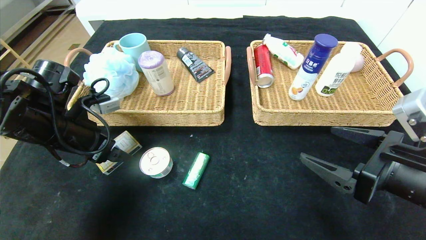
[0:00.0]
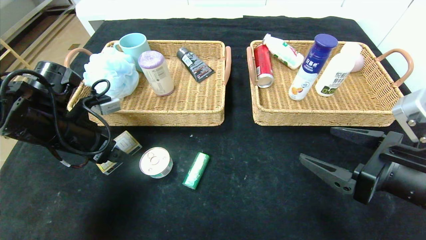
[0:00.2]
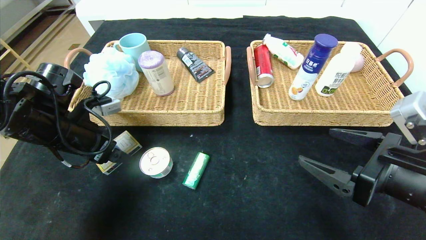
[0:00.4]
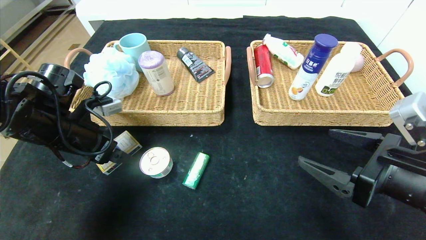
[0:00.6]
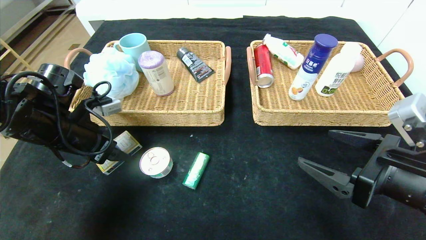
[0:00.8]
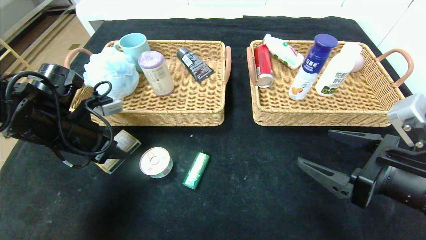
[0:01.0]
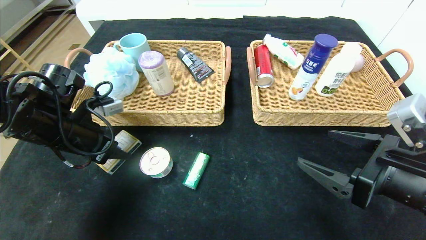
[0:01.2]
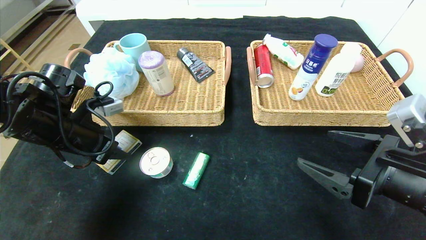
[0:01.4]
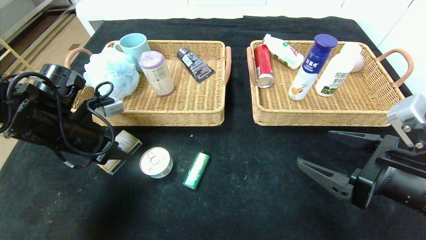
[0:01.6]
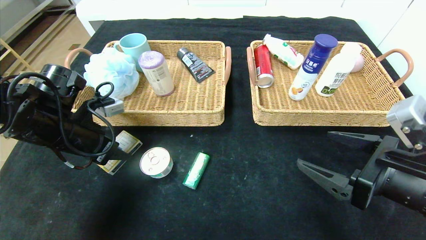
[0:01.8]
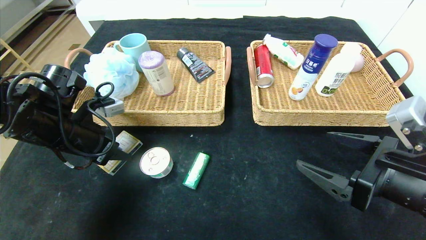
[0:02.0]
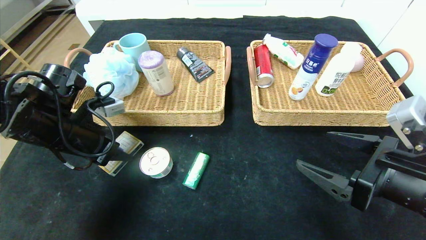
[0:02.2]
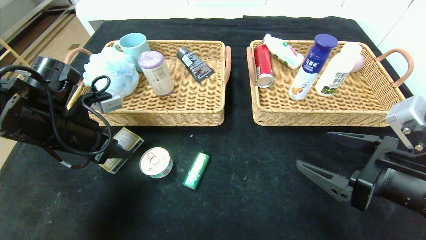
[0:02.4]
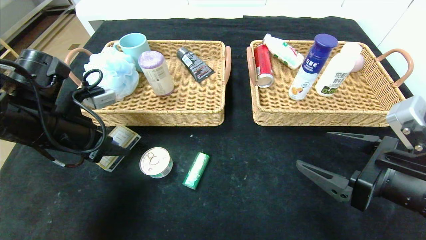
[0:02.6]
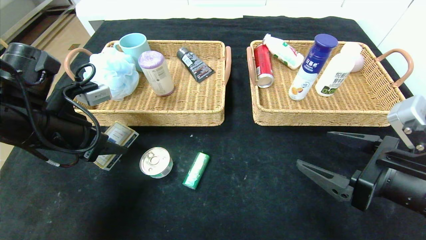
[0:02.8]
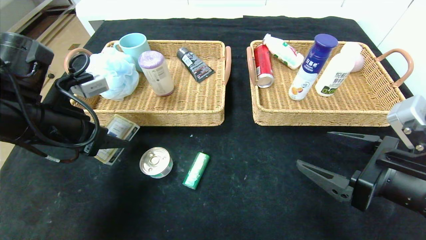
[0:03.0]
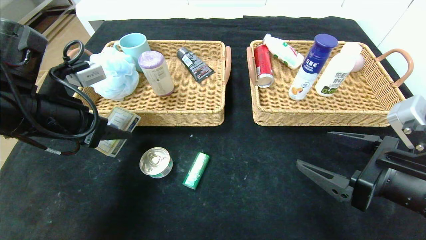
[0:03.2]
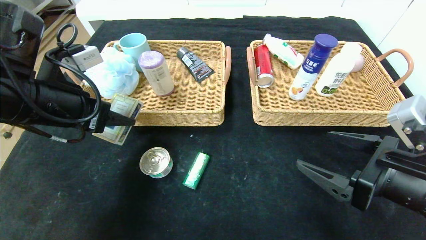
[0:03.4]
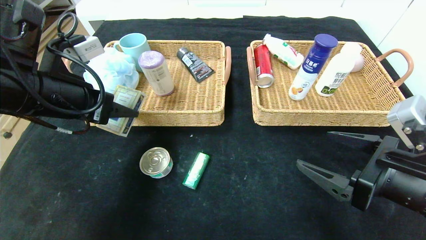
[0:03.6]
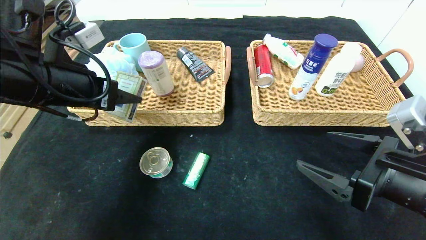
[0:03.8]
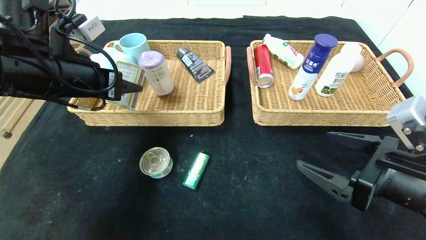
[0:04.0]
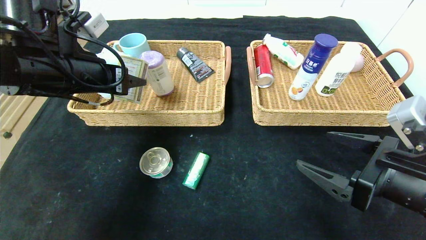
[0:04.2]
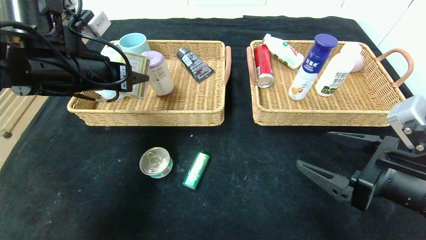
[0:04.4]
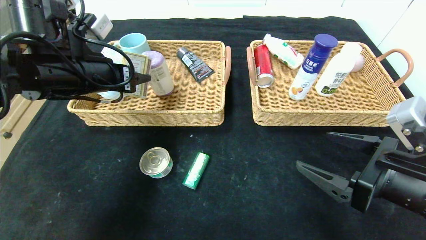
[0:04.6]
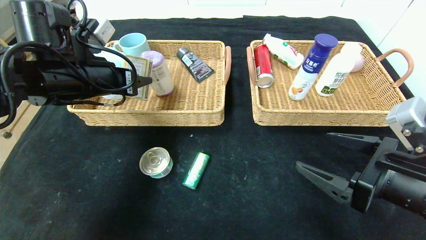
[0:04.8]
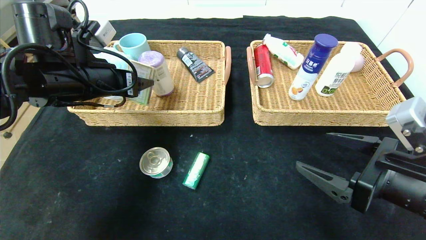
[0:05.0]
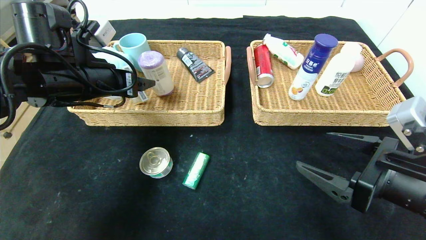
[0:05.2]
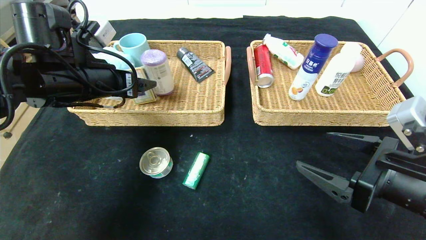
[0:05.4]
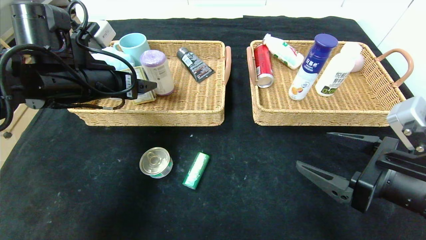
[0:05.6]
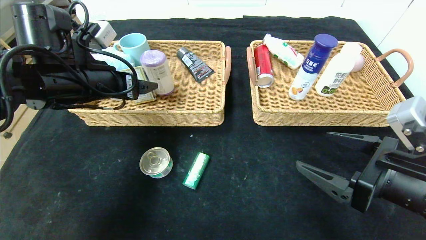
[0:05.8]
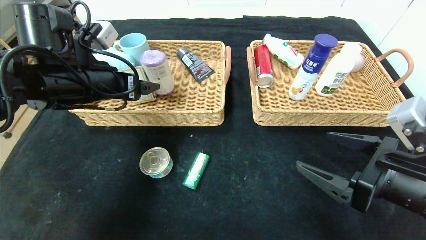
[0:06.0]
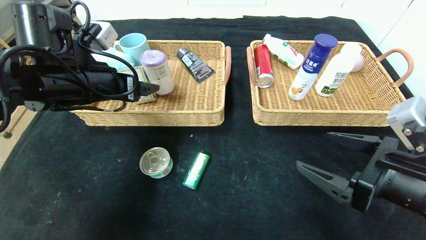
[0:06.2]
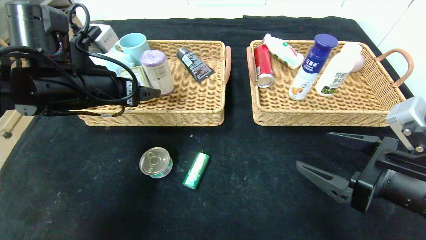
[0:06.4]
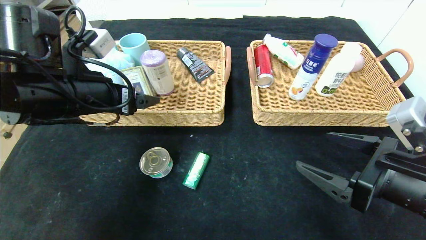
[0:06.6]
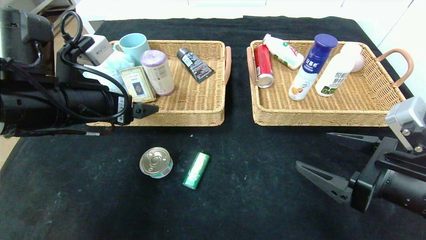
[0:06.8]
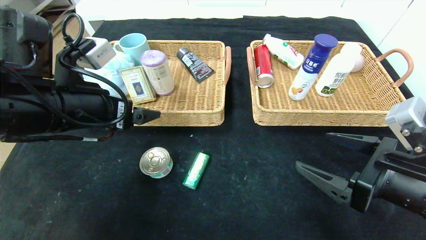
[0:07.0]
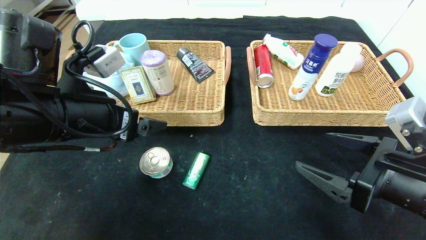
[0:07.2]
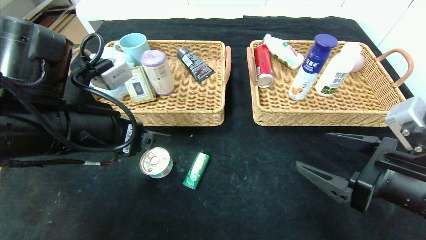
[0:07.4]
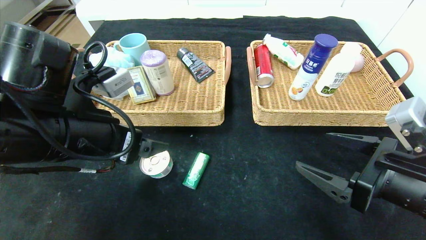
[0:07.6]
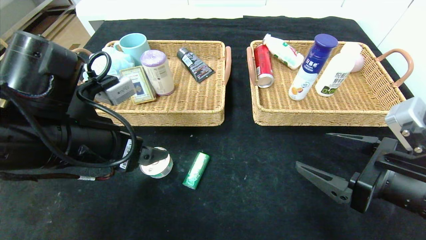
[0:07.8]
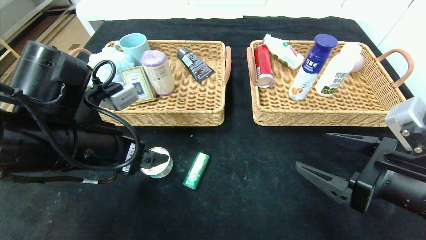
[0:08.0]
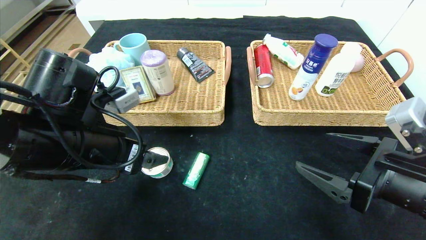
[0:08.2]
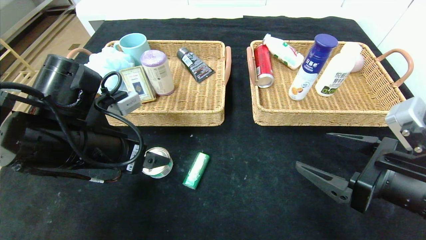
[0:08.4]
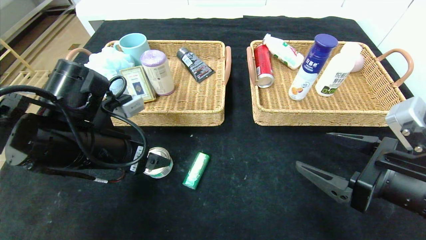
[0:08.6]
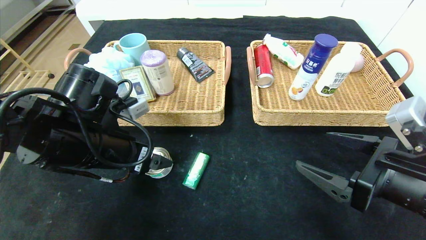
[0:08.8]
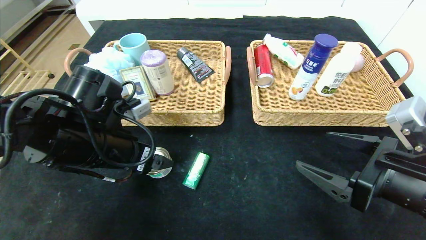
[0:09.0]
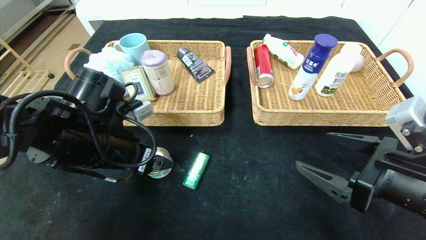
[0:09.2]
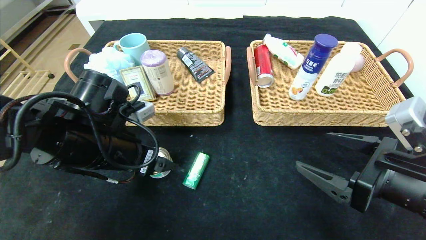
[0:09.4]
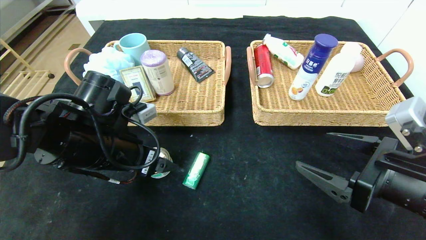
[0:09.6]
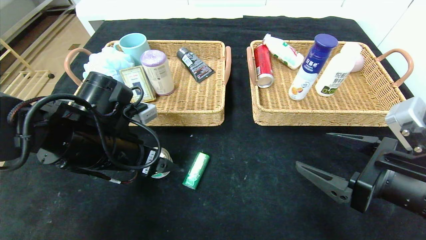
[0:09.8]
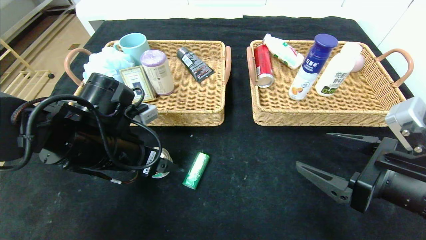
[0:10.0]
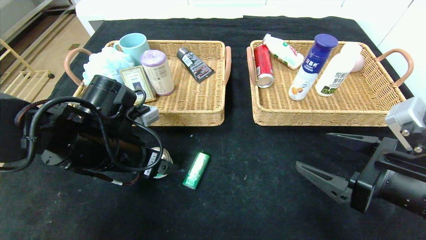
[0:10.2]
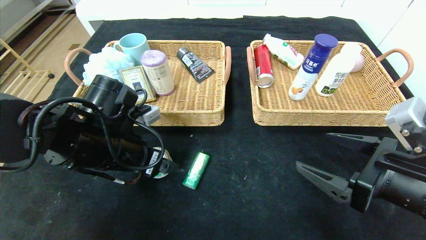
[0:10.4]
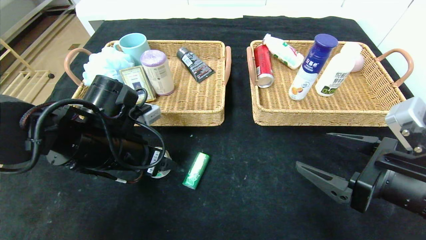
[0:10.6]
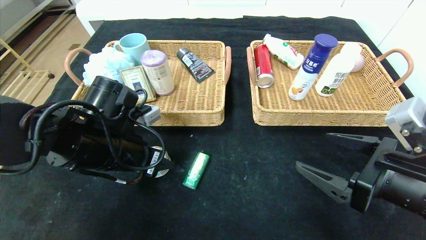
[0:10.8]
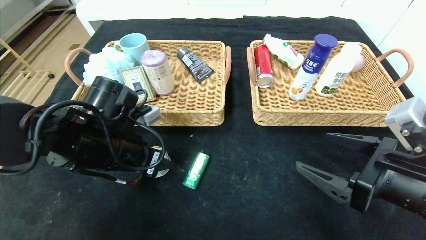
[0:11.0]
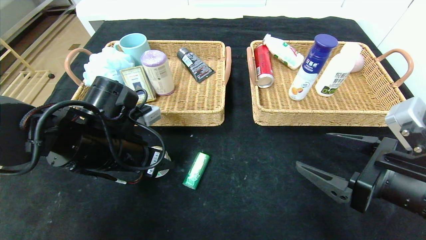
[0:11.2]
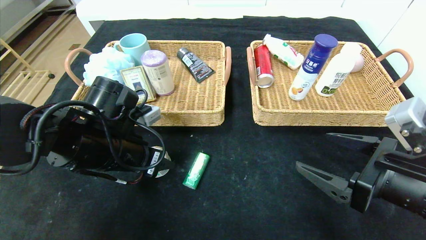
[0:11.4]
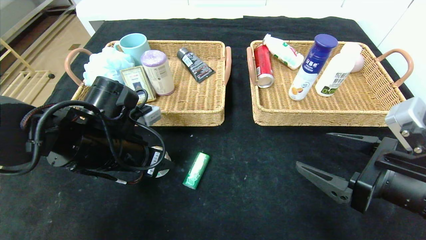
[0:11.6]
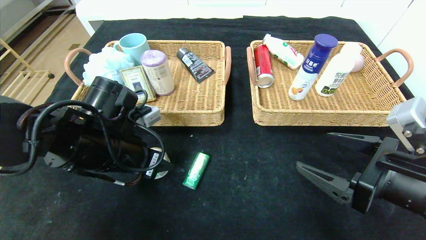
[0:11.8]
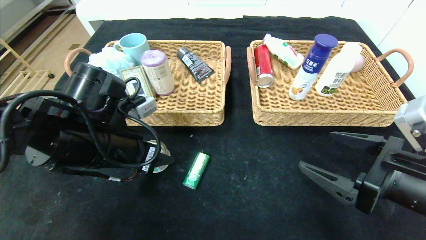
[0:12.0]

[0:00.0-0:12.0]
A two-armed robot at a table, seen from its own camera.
Step, 0:00.0 to 0:05.0: Grasp the playing cards and put it in the left basket.
0:00.0 to 0:01.6: The left gripper closes.
0:01.6 to 0:03.0: The left gripper shifts by some 5 cm.
0:03.0 to 0:04.4: The left gripper is displaced forward by about 5 cm.
0:04.4 to 0:06.0: The left gripper opens its fingers.
0:06.0 to 0:07.6: The left gripper is displaced backward by approximately 10 cm.
0:07.6 to 0:09.0: The left gripper changes place by roughly 5 cm.
0:09.0 to 0:10.4: The grippers stay close to where they were, moving slightly.
0:10.4 to 0:12.0: The left gripper closes.

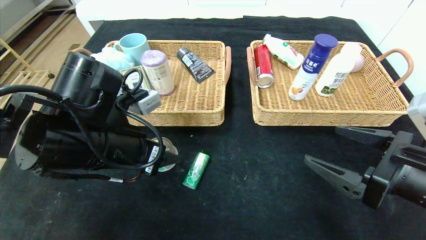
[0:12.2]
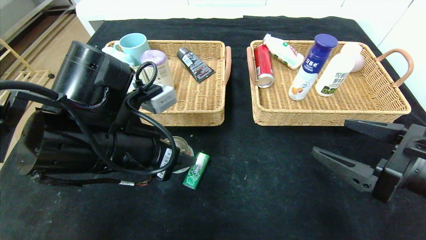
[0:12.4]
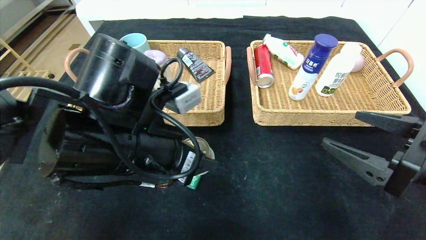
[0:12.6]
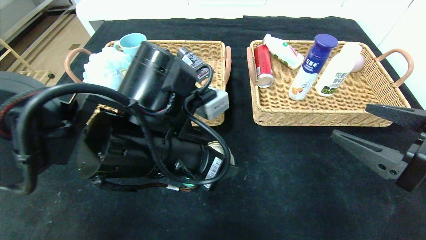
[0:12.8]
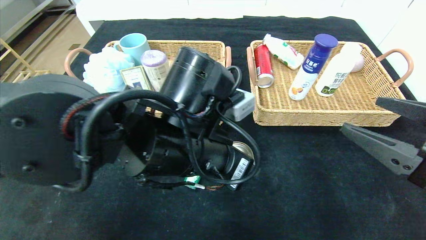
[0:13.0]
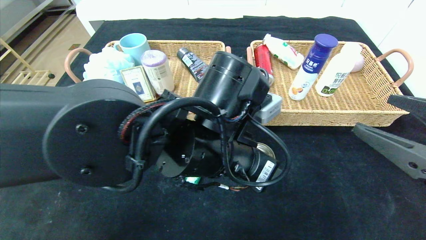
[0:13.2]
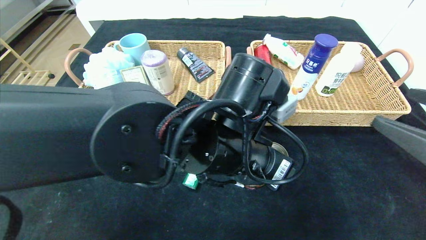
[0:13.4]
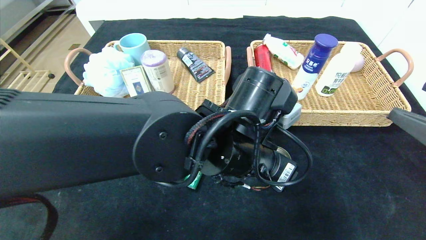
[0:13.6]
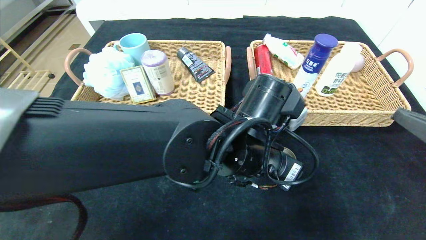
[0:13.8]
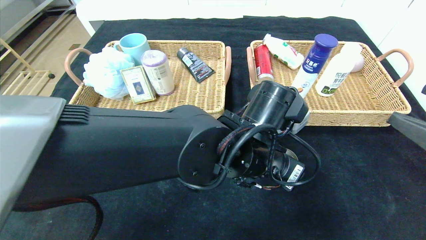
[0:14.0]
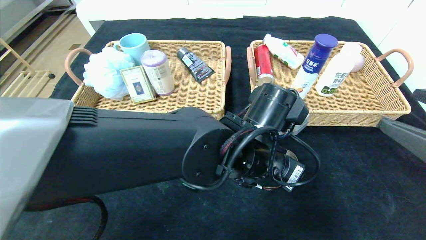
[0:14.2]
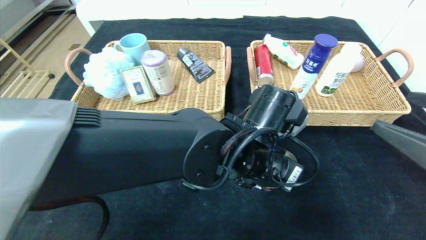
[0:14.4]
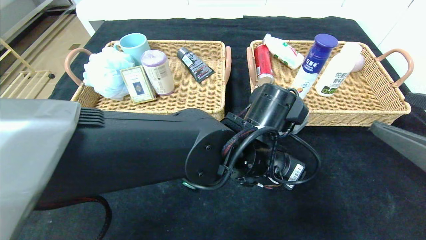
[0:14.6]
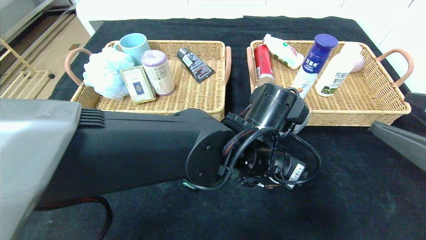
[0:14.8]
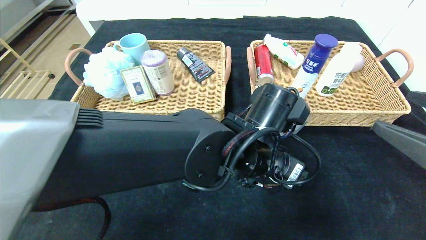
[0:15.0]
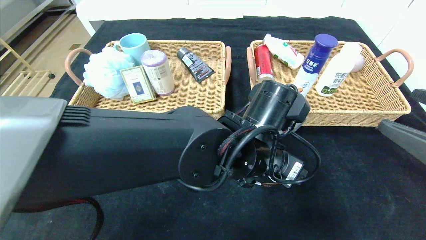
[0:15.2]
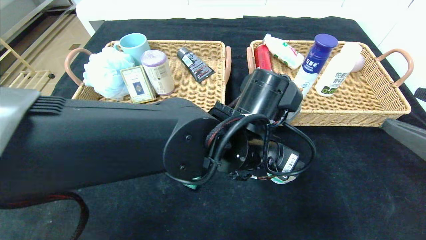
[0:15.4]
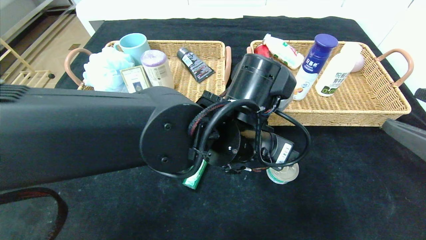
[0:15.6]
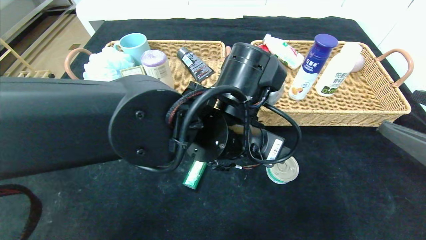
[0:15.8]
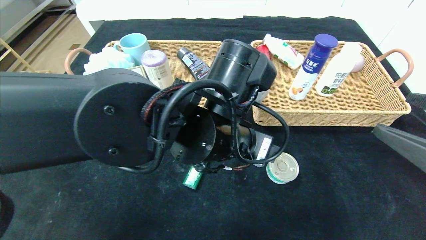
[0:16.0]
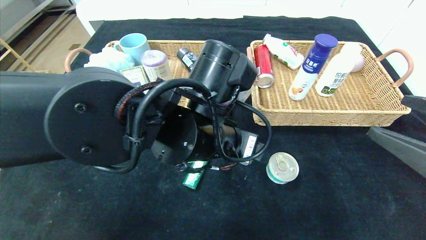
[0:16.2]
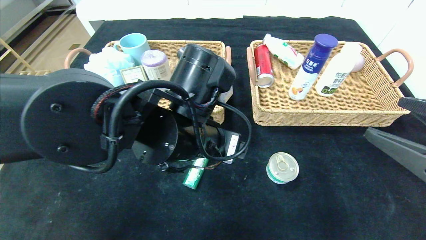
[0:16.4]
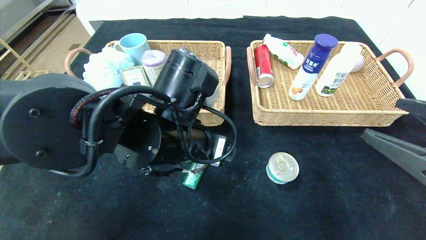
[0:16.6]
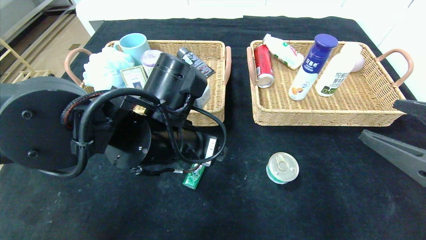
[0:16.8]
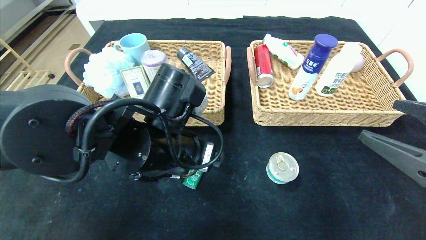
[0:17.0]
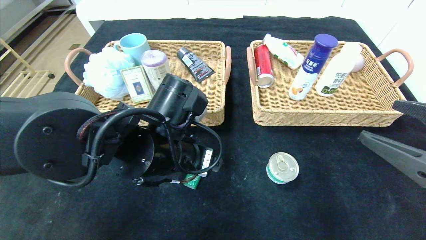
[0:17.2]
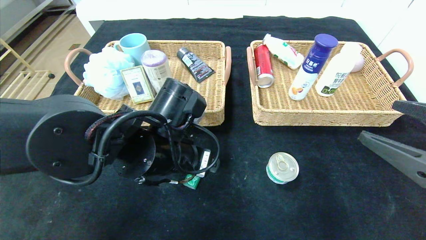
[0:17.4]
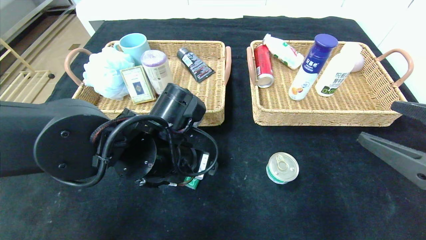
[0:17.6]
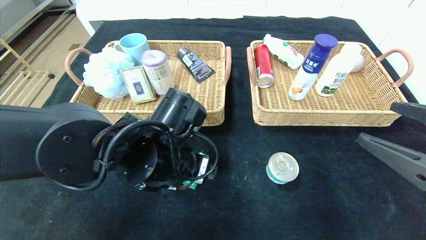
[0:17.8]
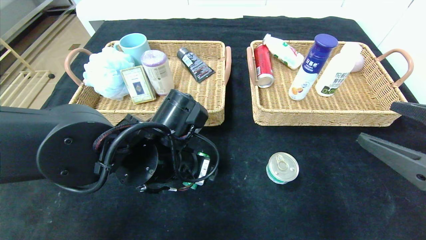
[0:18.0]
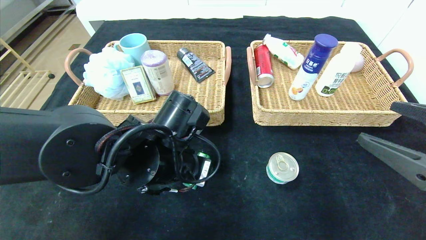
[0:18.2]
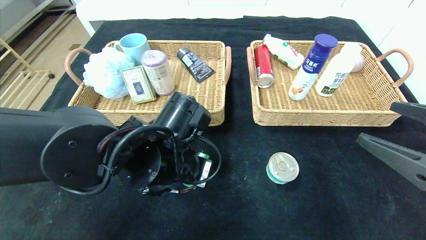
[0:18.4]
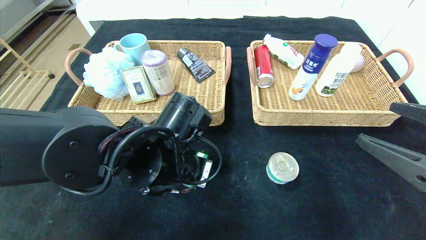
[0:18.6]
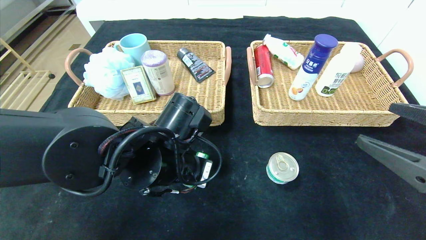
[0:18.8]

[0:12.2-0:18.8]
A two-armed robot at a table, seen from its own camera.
Step, 0:12.2 to 0:14.8: Place the can in the center of the table.
0:12.2 to 0:13.8: The right gripper moves upward, about 5 cm; the left gripper is displaced to the right by approximately 20 cm.
0:13.8 to 0:15.4: The left gripper opens.
0:15.4 to 0:17.2: The left gripper moves to the left, approximately 10 cm.
0:17.2 to 0:18.8: The left gripper closes up.
